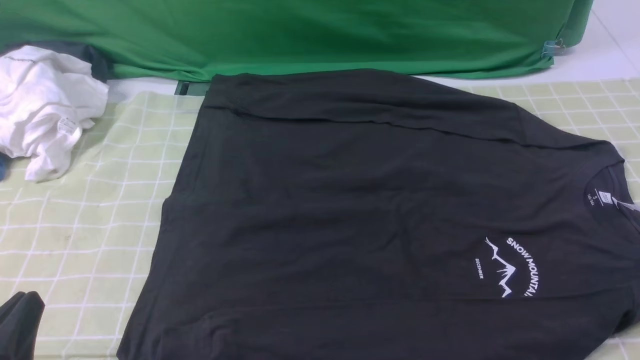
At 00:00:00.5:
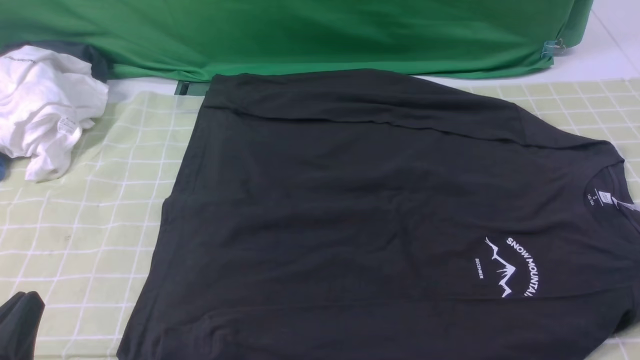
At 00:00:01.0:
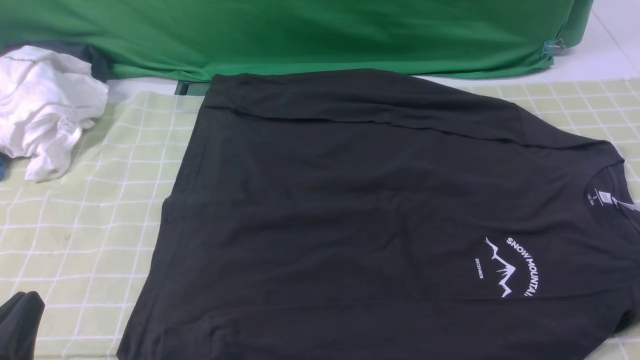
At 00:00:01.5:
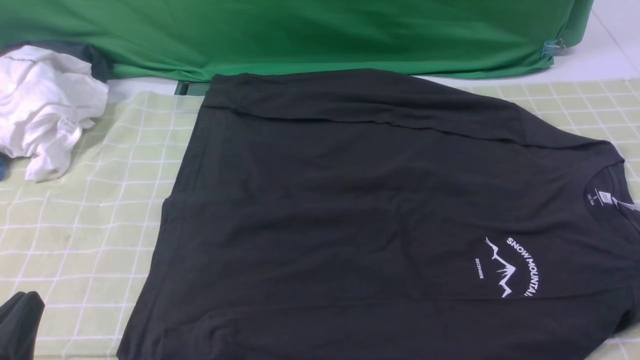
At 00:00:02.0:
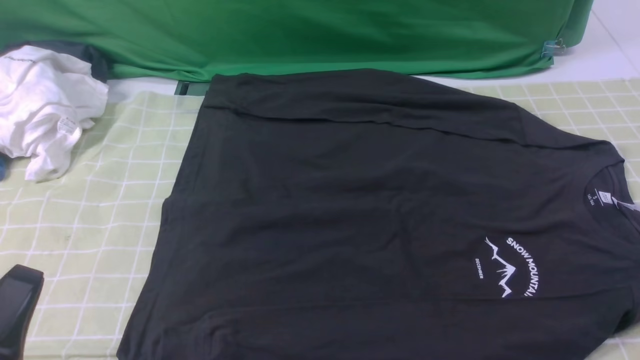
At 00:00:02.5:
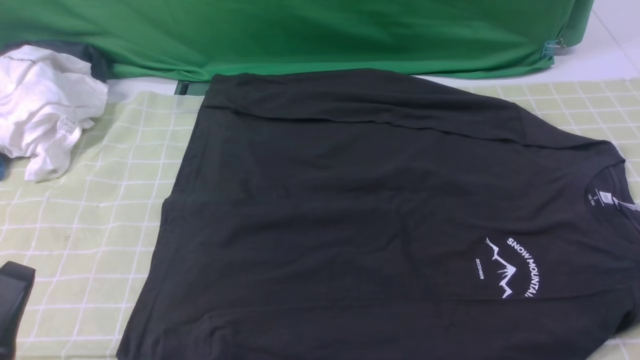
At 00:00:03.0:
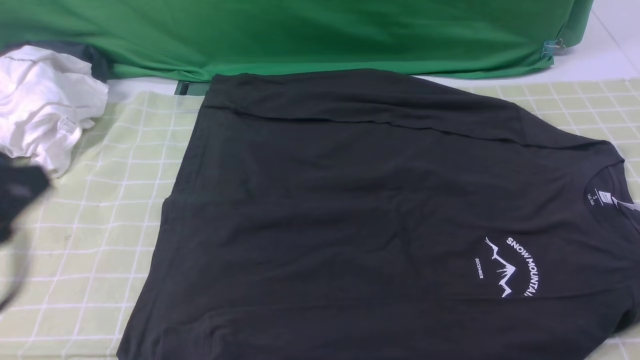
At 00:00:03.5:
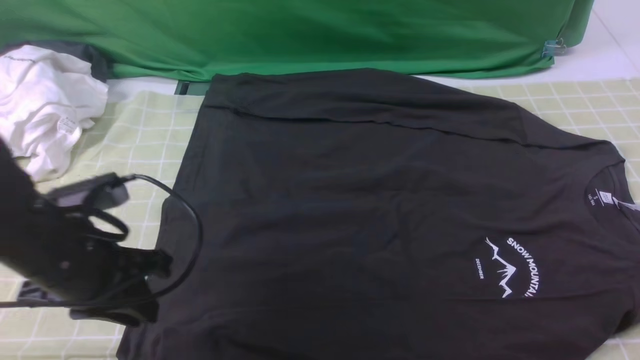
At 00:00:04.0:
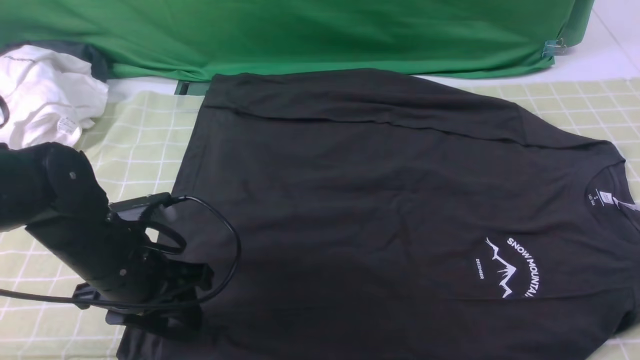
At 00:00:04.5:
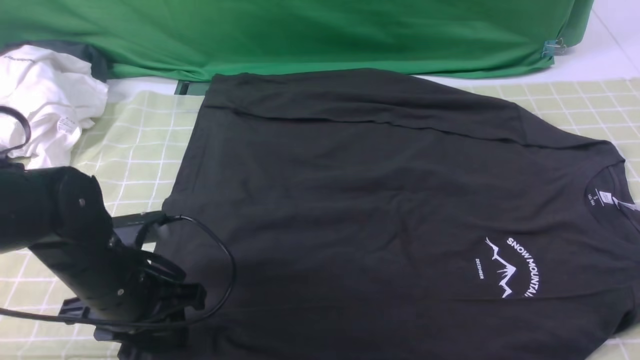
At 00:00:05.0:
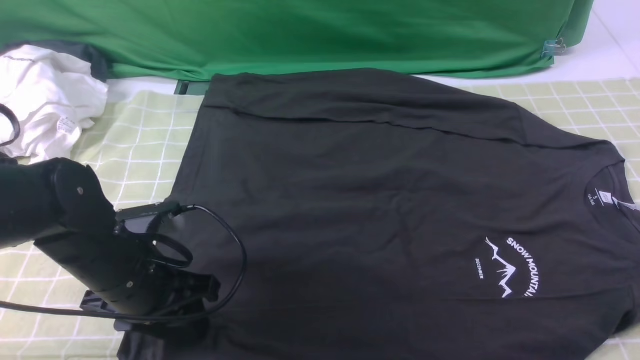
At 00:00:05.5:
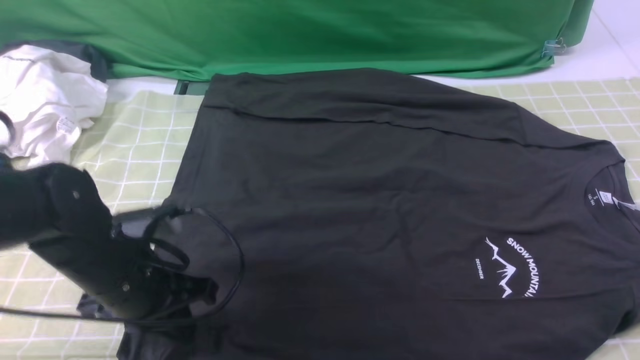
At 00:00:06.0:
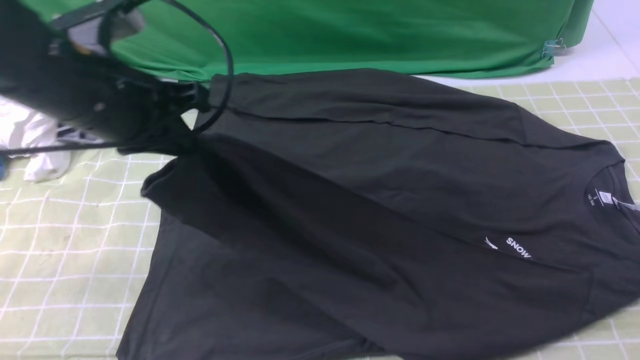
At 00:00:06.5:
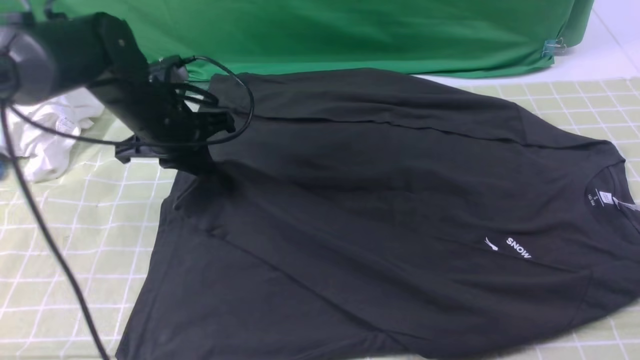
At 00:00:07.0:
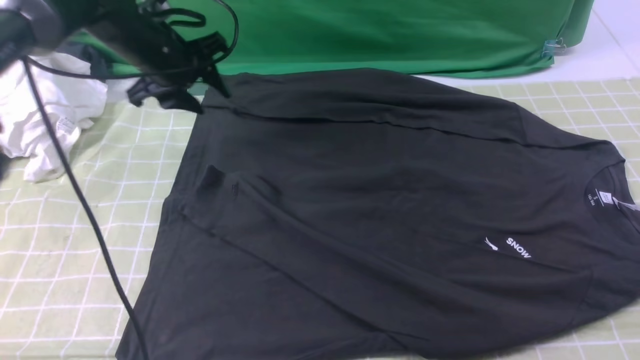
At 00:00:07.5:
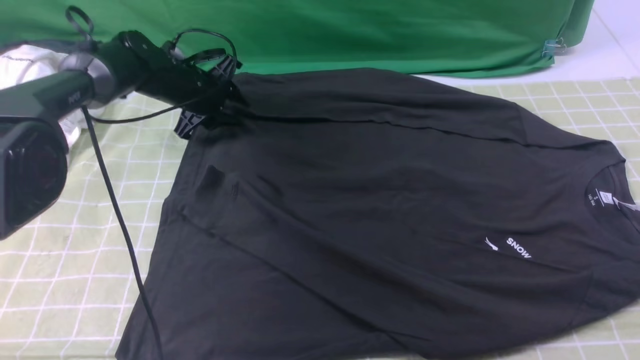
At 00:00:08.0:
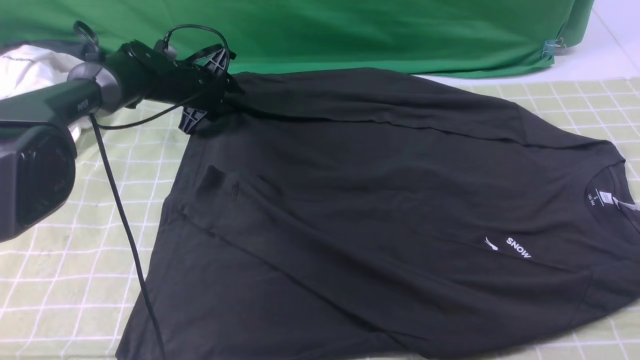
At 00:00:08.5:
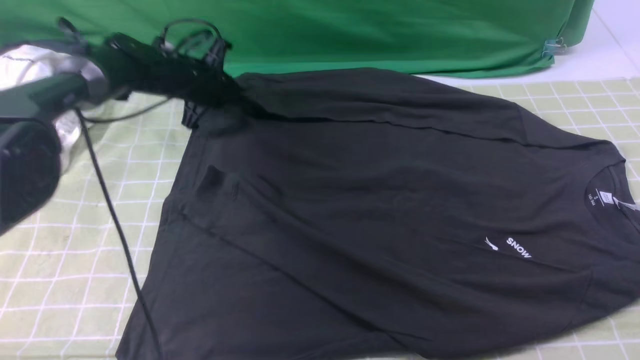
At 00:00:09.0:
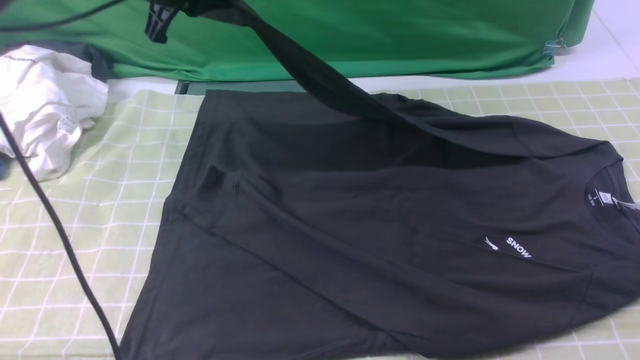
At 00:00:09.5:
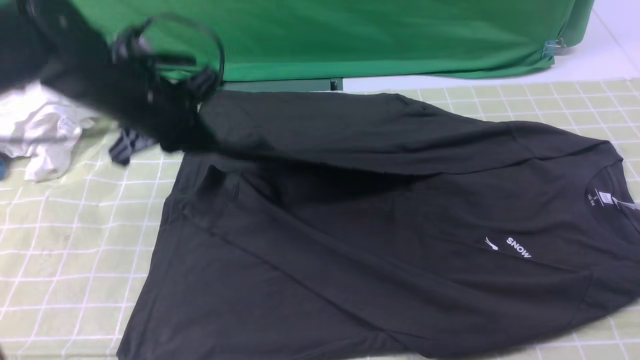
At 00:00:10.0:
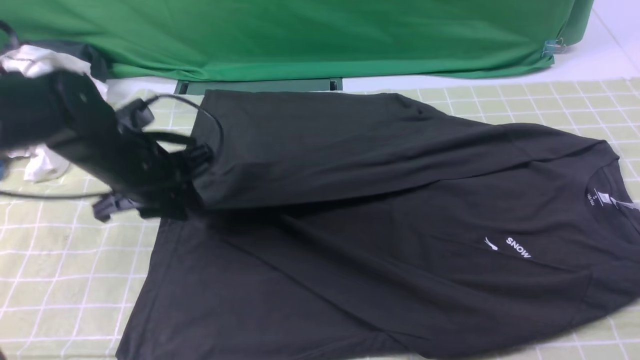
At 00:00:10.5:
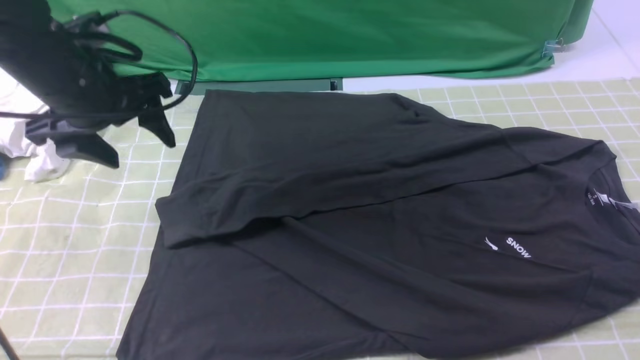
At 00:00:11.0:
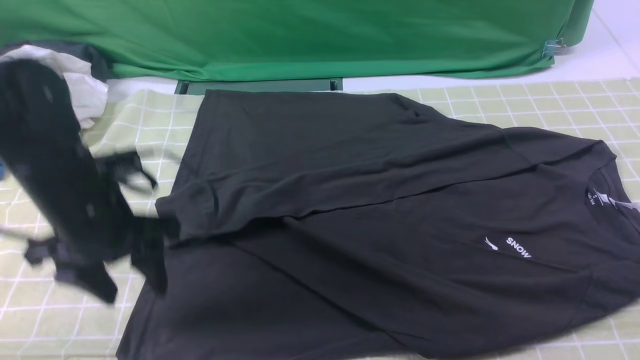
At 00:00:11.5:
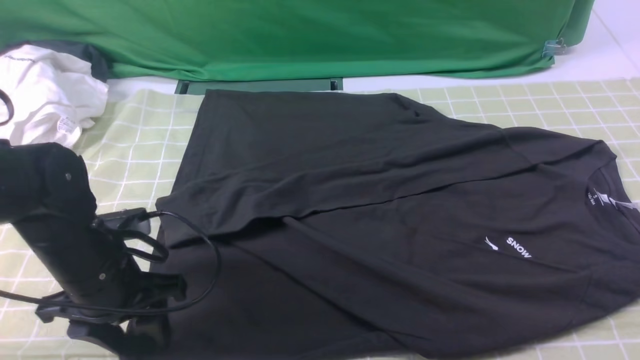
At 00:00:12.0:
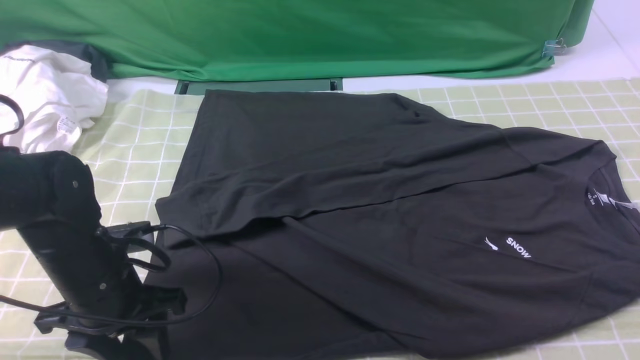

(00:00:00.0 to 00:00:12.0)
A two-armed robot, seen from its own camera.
Step, 00:00:00.0 - 00:00:05.0: use the left arm to clamp the cuff closest to it.
Step, 00:00:05.5 - 00:00:06.5: use the left arm to drag and place the cuff at the centered position on the left edge of the fabric.
Step, 00:00:07.0 - 00:00:08.0: use the left arm to clamp the cuff farthest from it.
Step, 00:00:08.5 - 00:00:10.0: use the left arm to drag and drop the cuff onto the cuff closest to the left arm.
00:00:02.0 - 00:00:04.0: The left gripper goes some 20 cm forward, and opens its fingers.
00:00:04.0 - 00:00:06.0: The left gripper is displaced upward and forward by about 15 cm, and closes up.
00:00:06.0 - 00:00:08.0: The left gripper shifts approximately 30 cm forward and downward, and opens up.
00:00:08.0 - 00:00:10.0: The left gripper shifts approximately 20 cm backward and upward, and closes, then opens again.
00:00:10.0 - 00:00:12.0: The left gripper shifts roughly 10 cm backward and downward, and opens its fingers.

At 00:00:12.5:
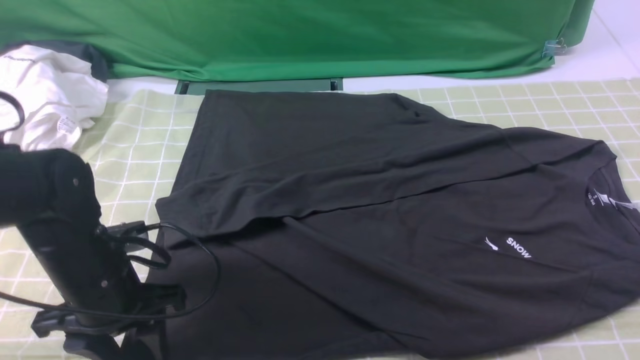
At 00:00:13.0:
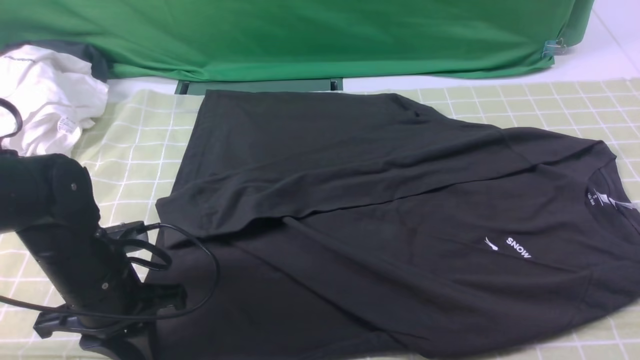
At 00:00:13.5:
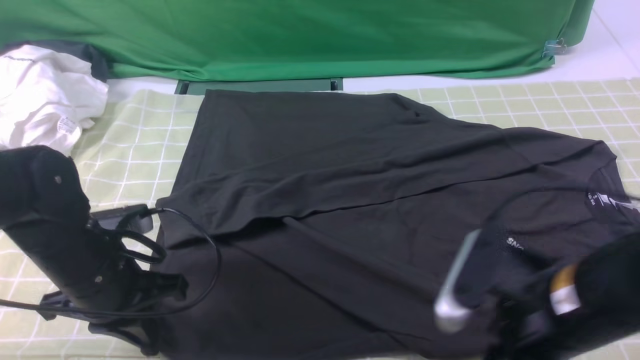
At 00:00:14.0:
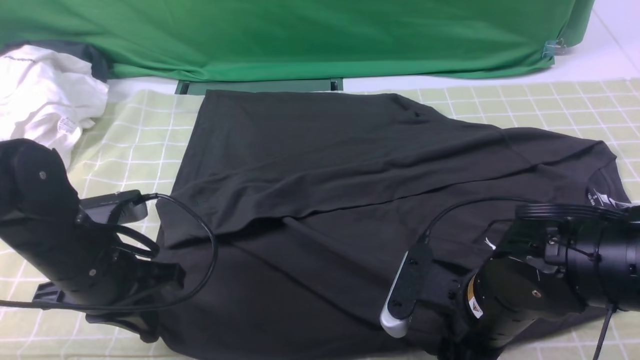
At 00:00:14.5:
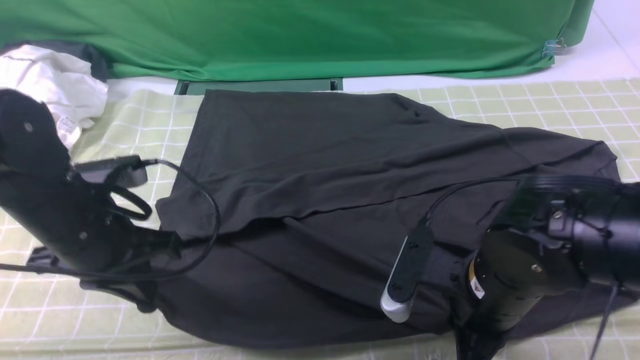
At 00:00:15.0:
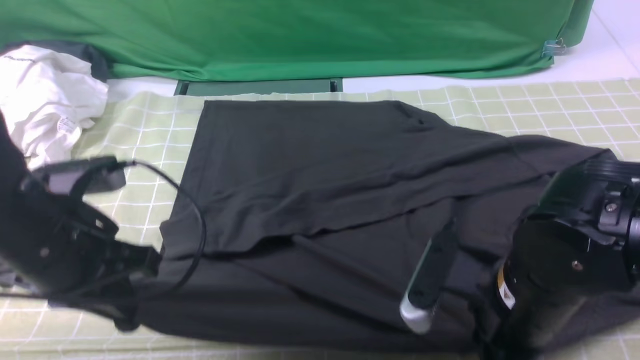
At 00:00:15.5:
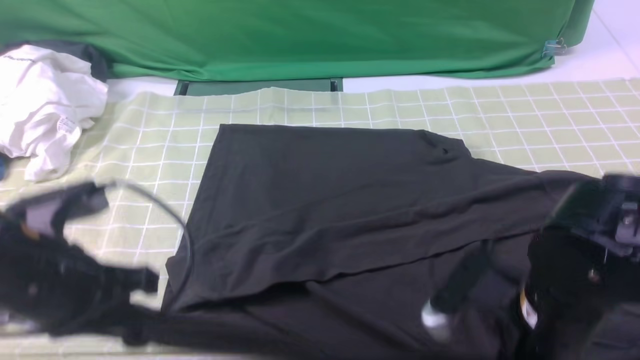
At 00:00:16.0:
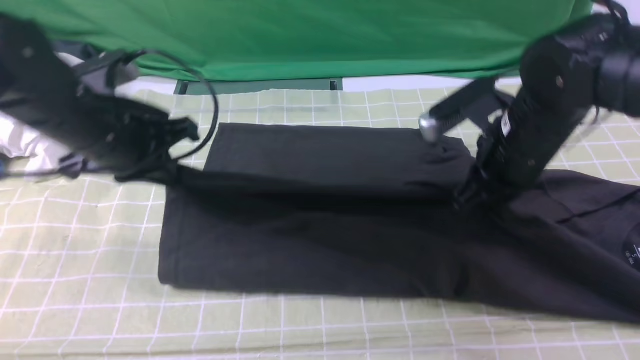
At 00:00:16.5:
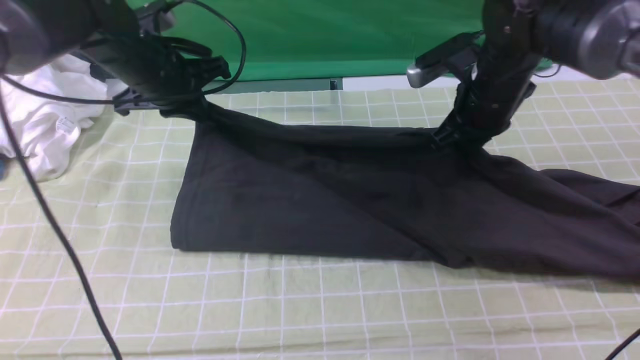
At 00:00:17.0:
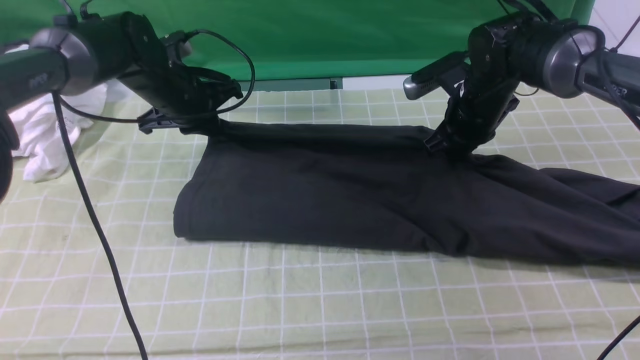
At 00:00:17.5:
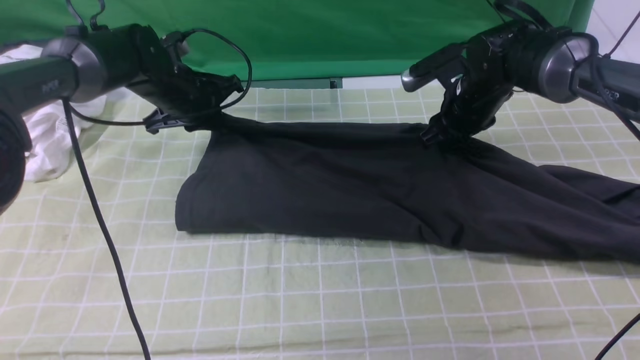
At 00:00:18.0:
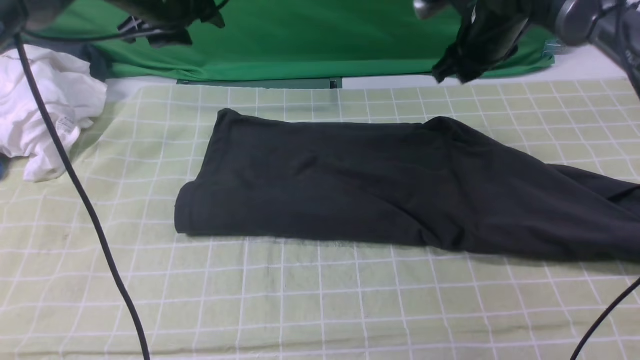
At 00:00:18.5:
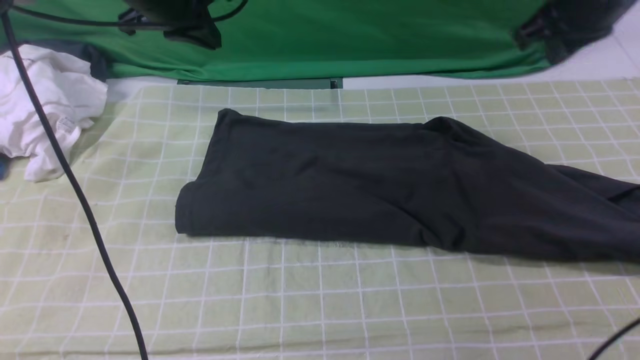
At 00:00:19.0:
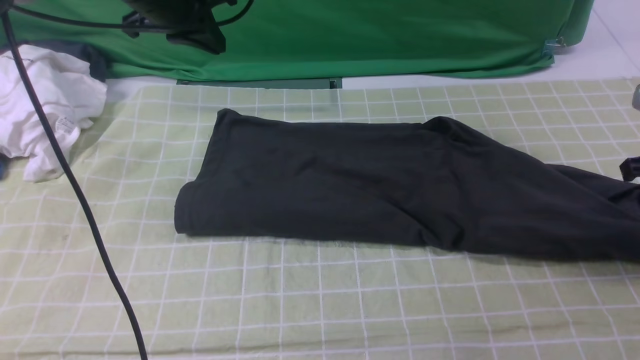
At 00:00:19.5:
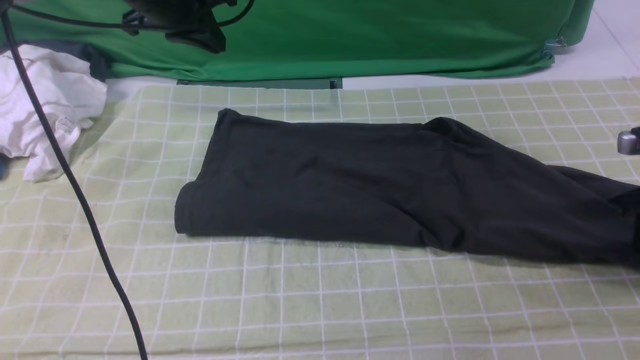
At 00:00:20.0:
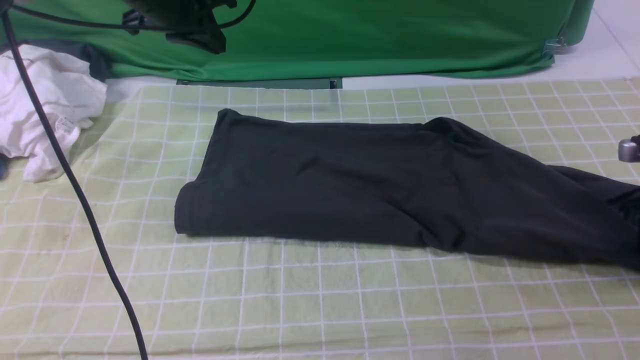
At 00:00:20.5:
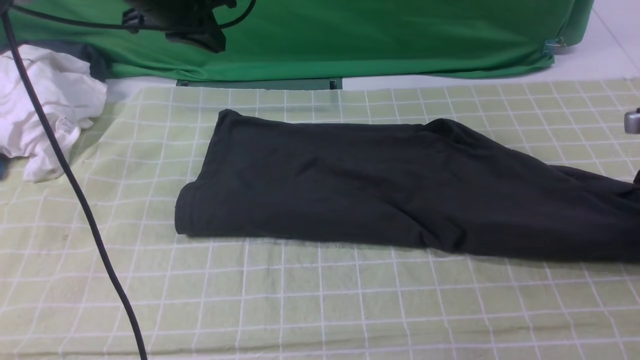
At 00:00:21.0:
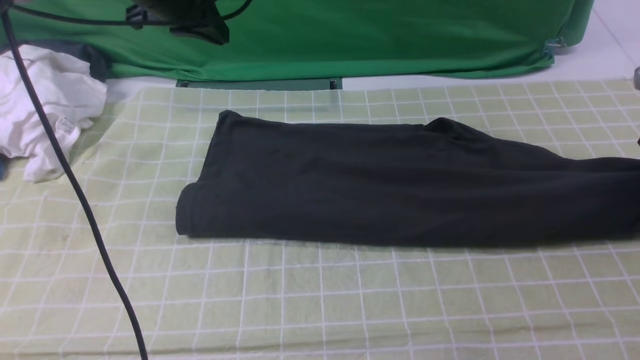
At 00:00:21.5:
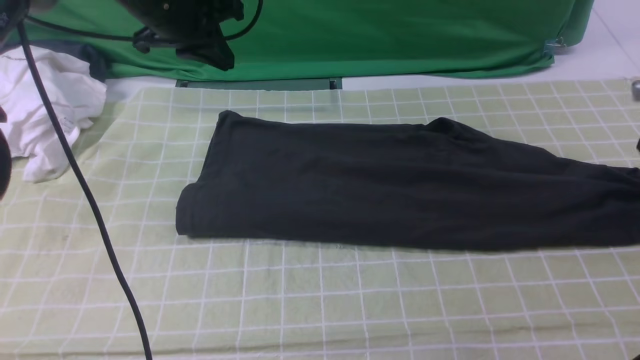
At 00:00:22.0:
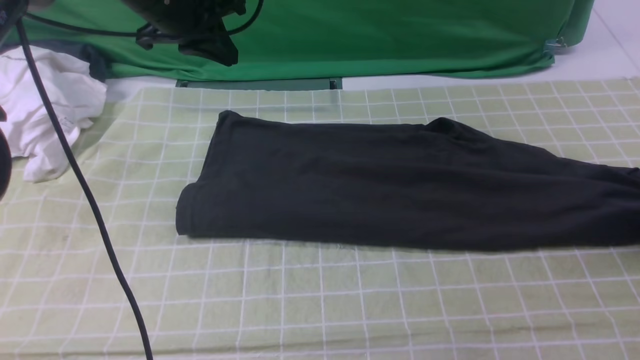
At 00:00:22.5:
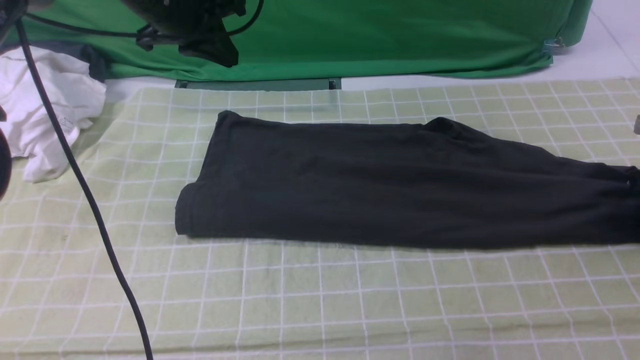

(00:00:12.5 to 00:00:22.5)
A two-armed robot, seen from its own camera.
Step, 00:00:14.5 - 00:00:17.5: use both arms to drag the lower edge of the fabric forward and fold it over the upper edge.
Step, 00:00:18.0 - 00:00:22.5: use the right arm to clamp the right edge of the fabric.
00:00:12.5 - 00:00:14.5: The left gripper goes approximately 5 cm upward, and closes up, while the right gripper heads to the left and downward, covering some 25 cm, and closes up.
00:00:14.5 - 00:00:16.5: The two grippers go some 20 cm forward.
00:00:16.5 - 00:00:18.5: The left gripper heads upward, covering approximately 10 cm, and opens, then closes once more. The right gripper heads upward and to the right, covering roughly 15 cm, and opens and closes again.
00:00:18.5 - 00:00:20.5: The right gripper goes some 20 cm to the right and downward, and opens and closes again.
00:00:20.5 - 00:00:22.5: The right gripper changes place by some 5 cm, and opens its fingers.
